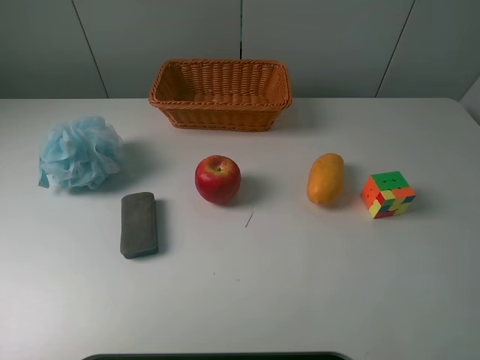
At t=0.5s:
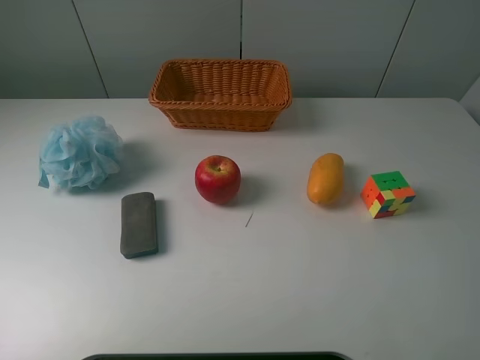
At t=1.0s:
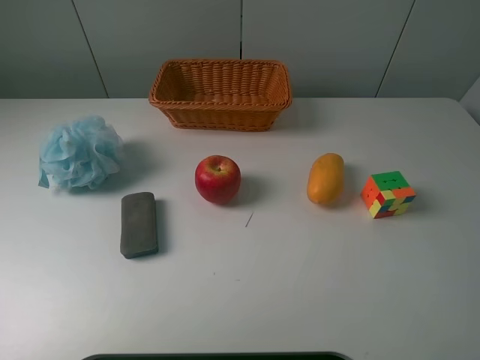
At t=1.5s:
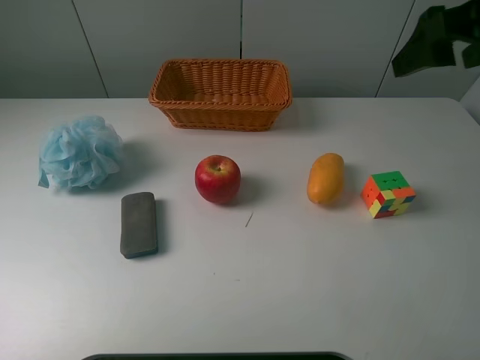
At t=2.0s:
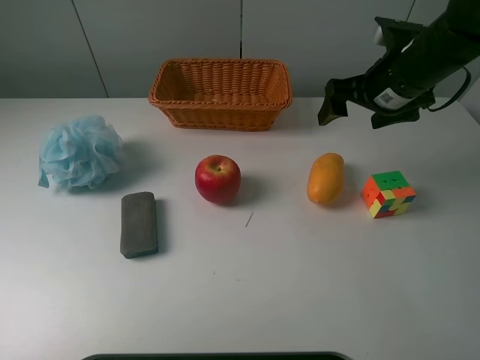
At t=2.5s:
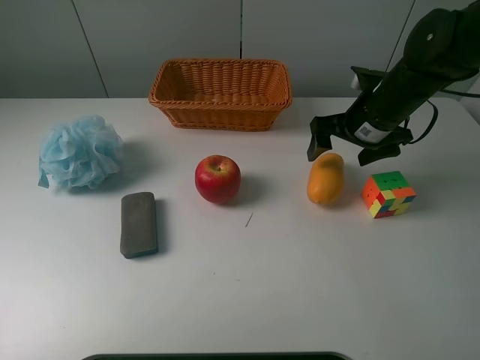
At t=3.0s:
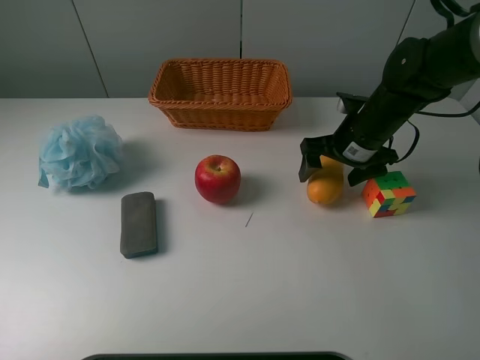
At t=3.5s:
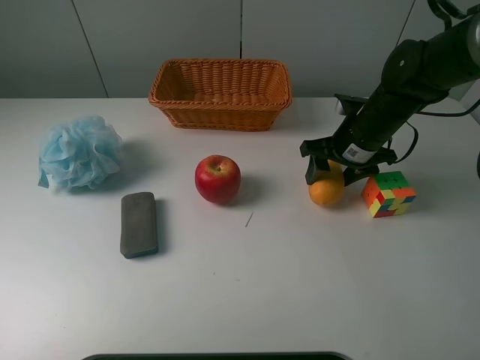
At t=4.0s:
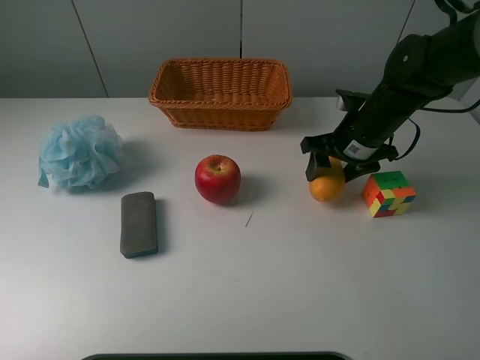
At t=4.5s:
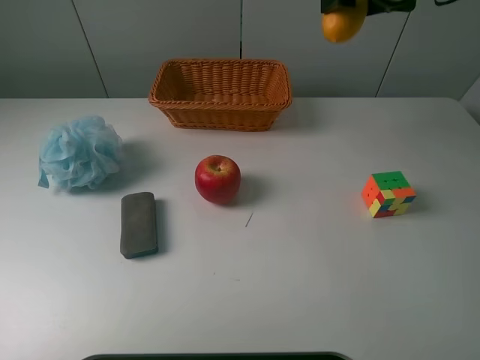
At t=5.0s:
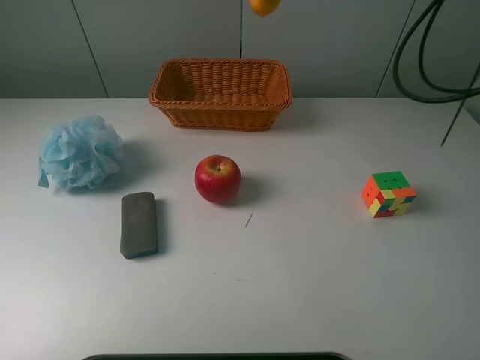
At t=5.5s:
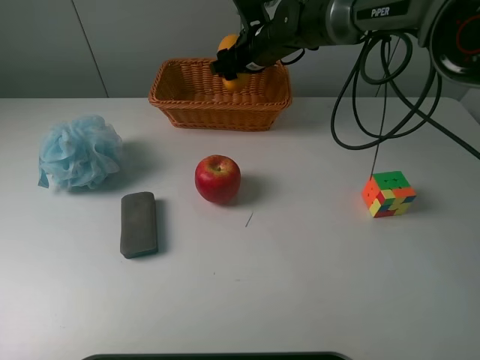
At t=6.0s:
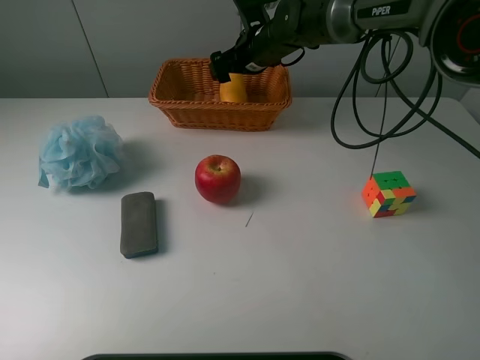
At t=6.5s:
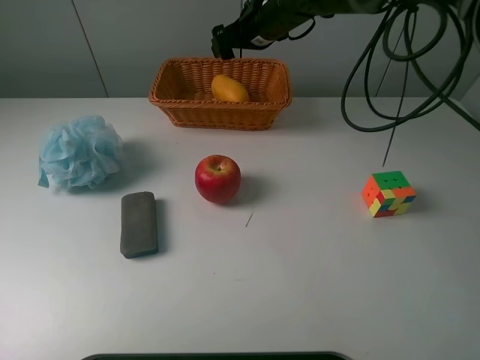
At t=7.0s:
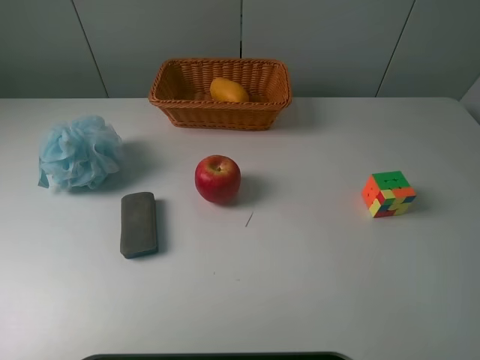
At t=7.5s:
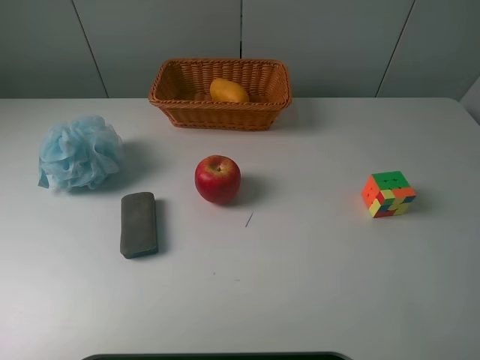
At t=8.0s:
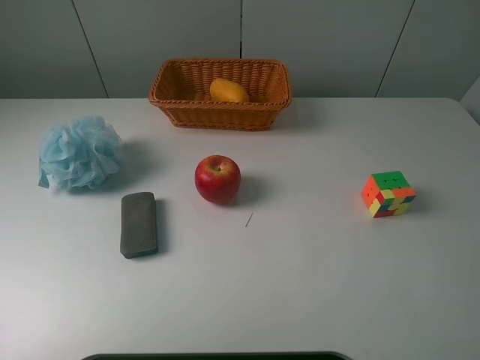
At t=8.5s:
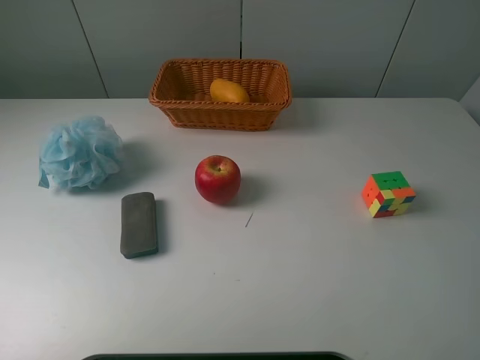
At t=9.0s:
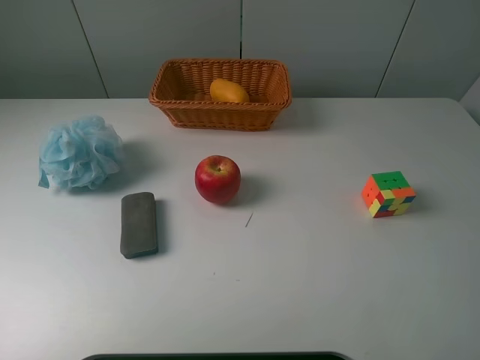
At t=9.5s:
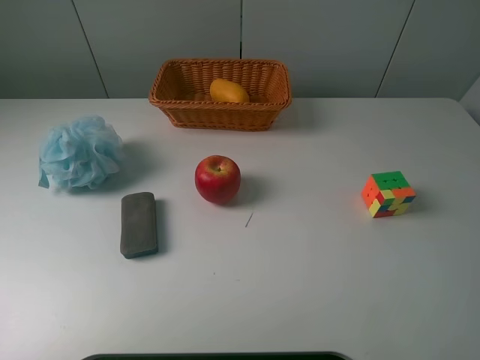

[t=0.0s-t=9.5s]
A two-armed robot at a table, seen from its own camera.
Task of the whole recording: use a picker to grab the item closest to the cube and place it in the basket.
Step, t=0.0s to t=3.0s: Grasp the mango with the right gripper.
Step, t=3.5s to t=6.0s: Place the mango into the basket with the right gripper.
t=0.0s to t=2.0s: The right gripper heads forward, covering roughly 35 cm.
t=2.0s to t=4.0s: The right gripper is displaced downward by some 5 cm, and closes.
t=4.0s to t=5.5s: The right gripper is displaced forward and to the left by about 20 cm, and moves about 20 cm upward and comes back.
t=5.5s to t=7.5s: The right gripper shifts roughly 50 cm upward, to the right and backward, and opens up.
